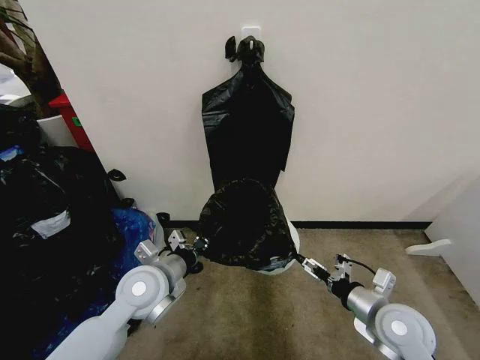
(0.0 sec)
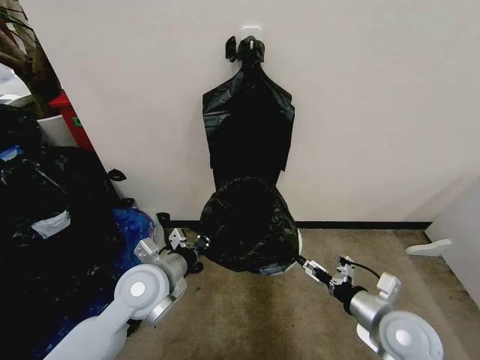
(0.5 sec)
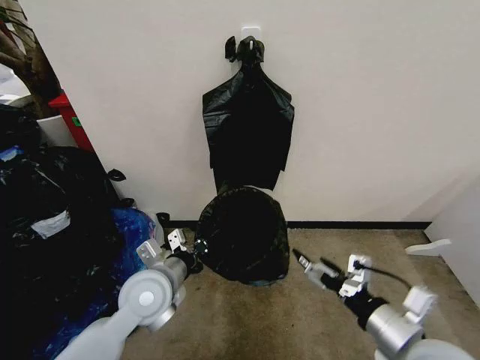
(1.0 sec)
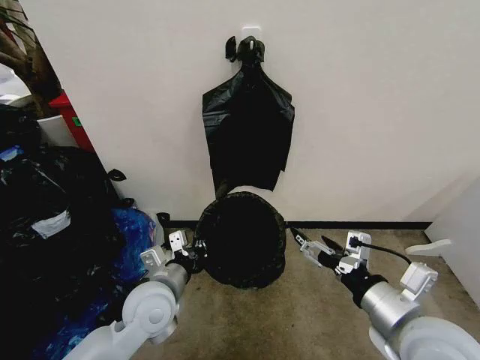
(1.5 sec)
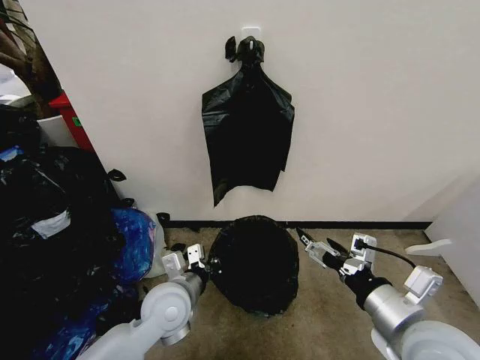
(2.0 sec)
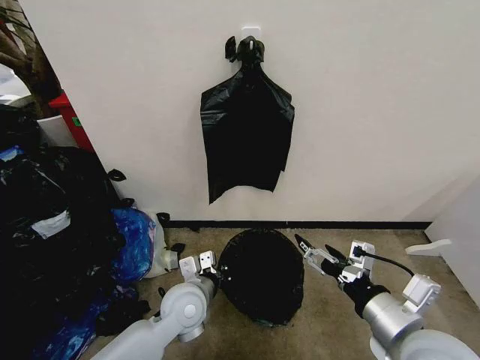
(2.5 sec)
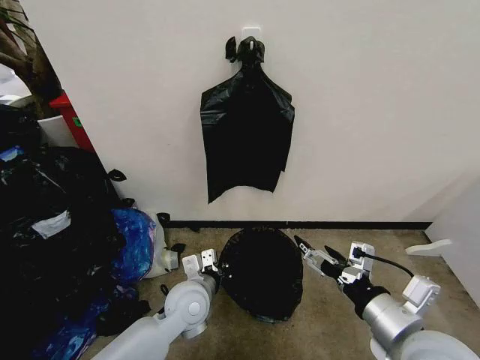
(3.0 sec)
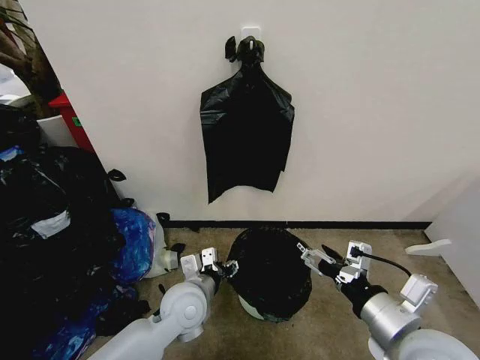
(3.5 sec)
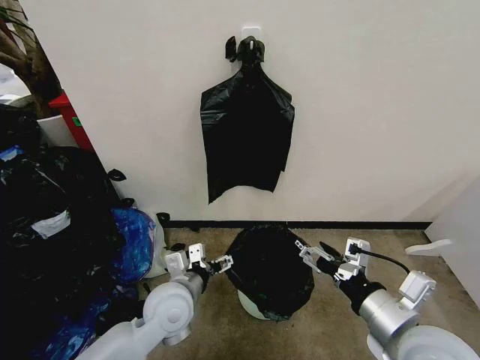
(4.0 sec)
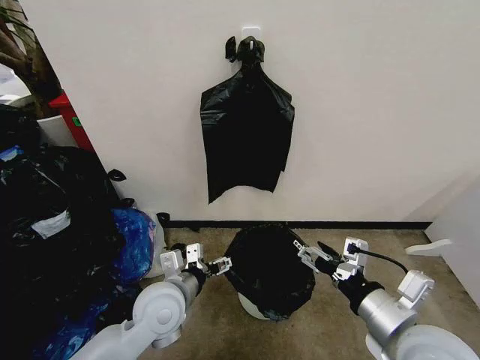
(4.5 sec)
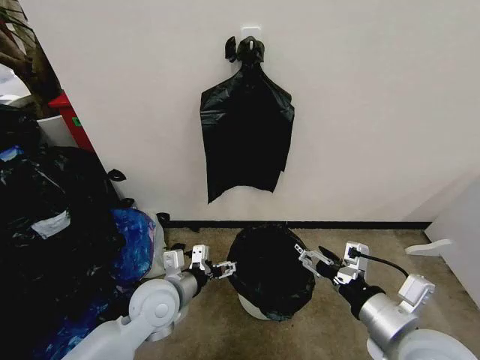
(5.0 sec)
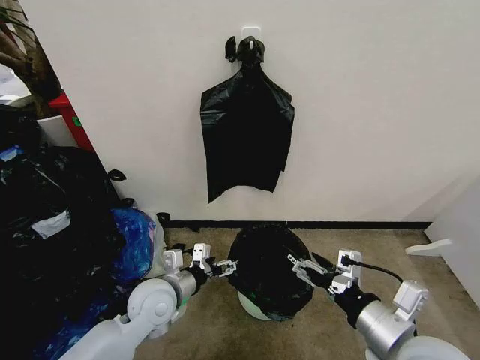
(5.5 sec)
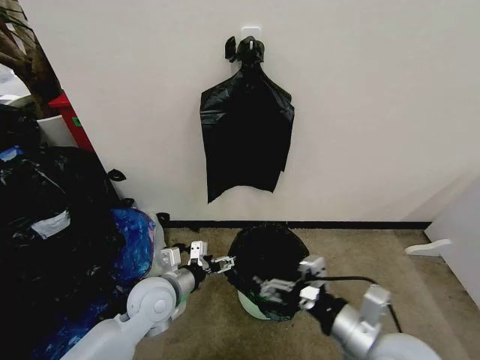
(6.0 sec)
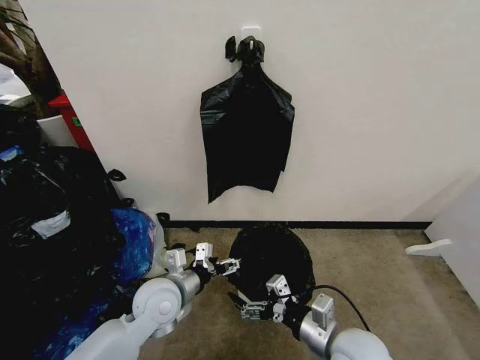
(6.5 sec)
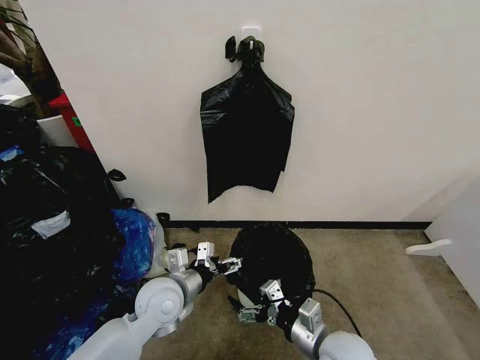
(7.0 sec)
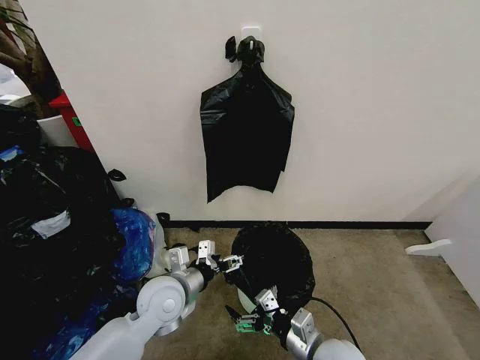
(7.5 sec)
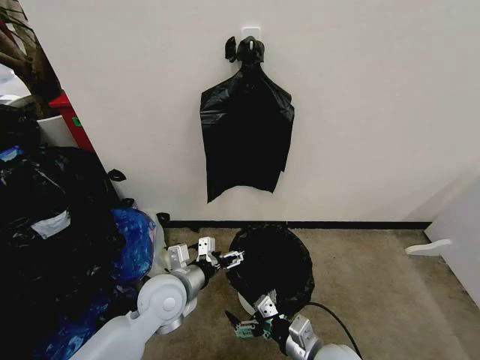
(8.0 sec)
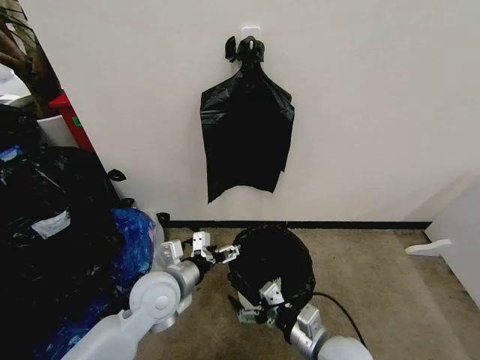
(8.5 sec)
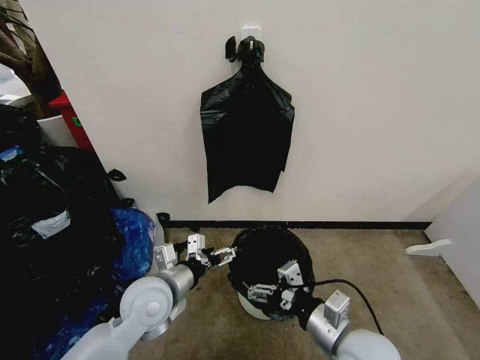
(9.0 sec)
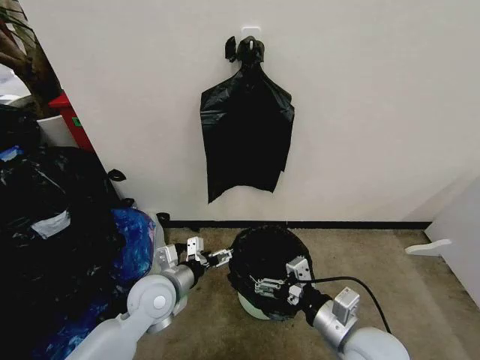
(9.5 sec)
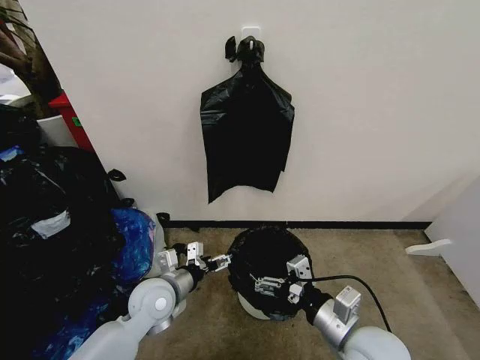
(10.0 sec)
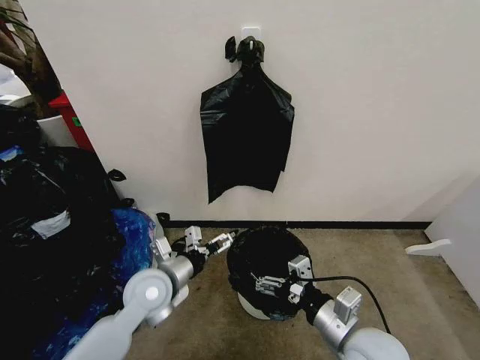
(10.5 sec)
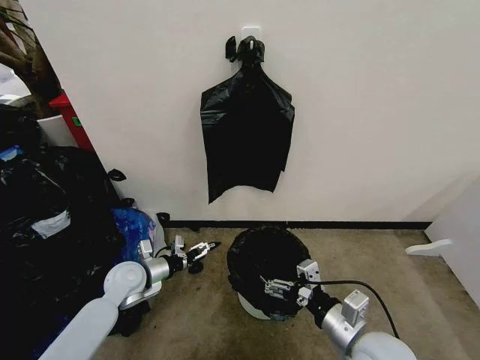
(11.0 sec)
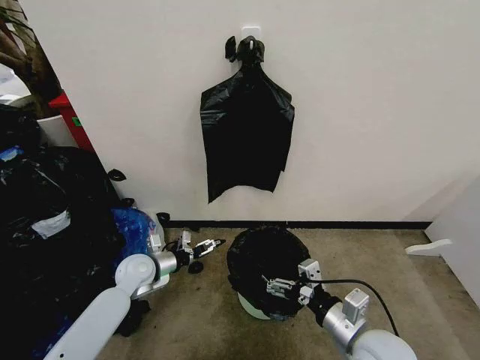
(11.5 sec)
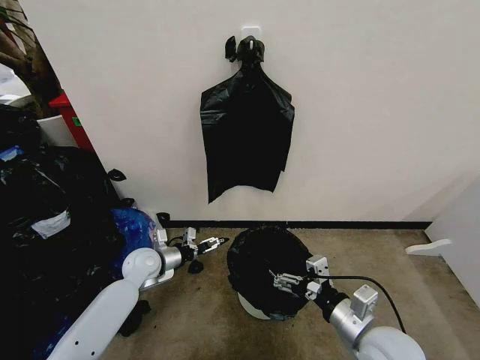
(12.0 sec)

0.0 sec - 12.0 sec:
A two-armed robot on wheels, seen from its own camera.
Task of the whole recording: Place the garbage bag over the trash bin.
0.0 sec - 2.0 sec: The left gripper shifts by about 5 cm. The right gripper is displaced upward and backward by approximately 15 cm.
2.0 sec - 4.0 sec: The left gripper opens its fingers.
6.0 sec - 8.0 sec: The right gripper moves downward, some 15 cm.
8.0 sec - 10.0 sec: The right gripper heads upward, covering roughly 10 cm.
10.0 sec - 12.0 sec: The left gripper travels forward, to the left and downward by about 15 cm.

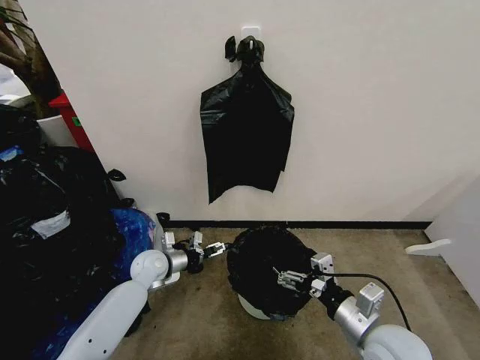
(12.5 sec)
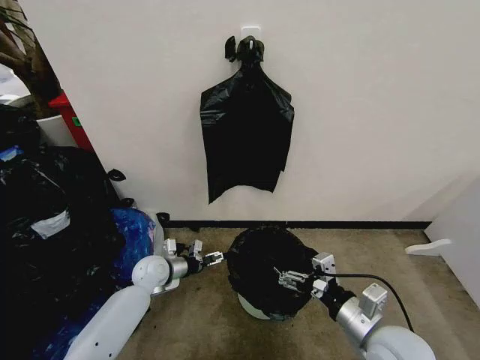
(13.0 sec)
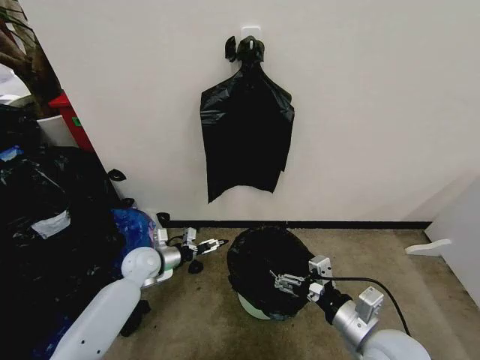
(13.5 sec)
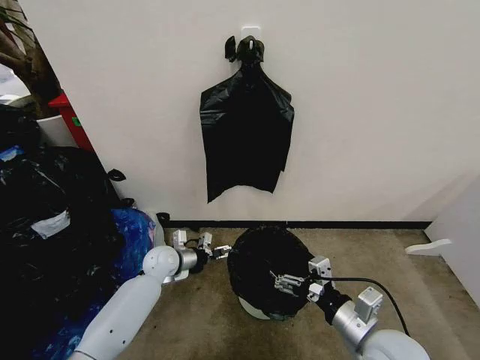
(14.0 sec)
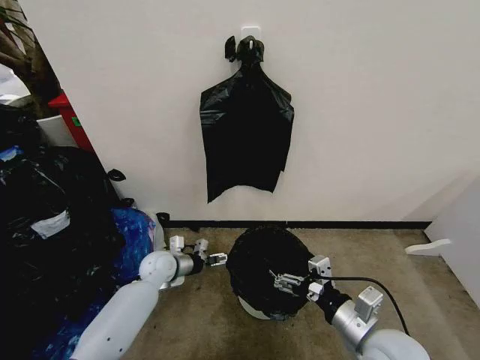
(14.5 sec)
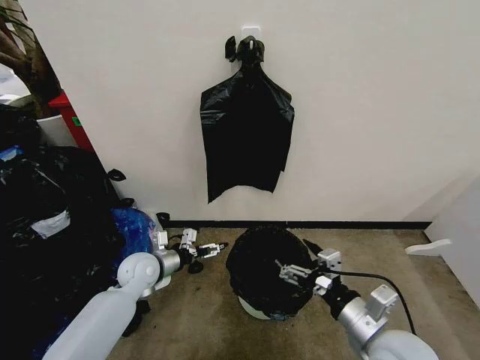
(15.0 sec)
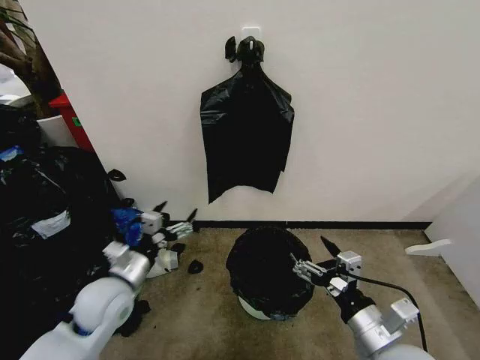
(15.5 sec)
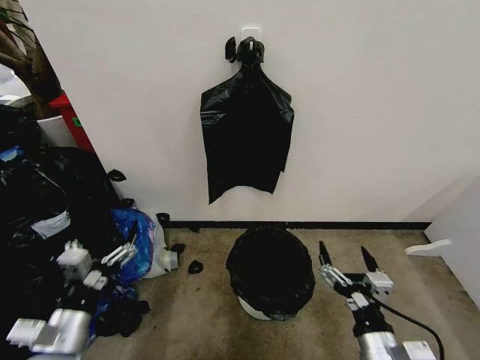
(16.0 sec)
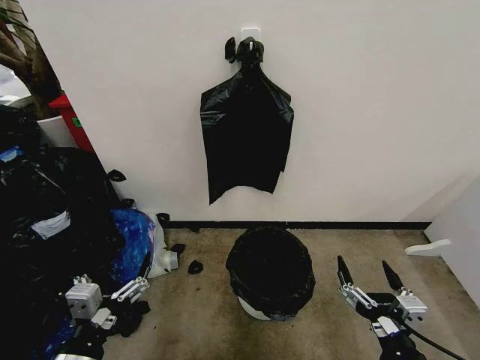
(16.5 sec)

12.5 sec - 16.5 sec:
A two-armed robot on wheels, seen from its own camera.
Task of the whole recording: Place the garbage bag over the trash bin.
12.5 sec - 14.5 sec: The grippers make only small movements.
14.5 sec - 16.5 sec: The right gripper moves backward, roughly 10 cm. The left gripper is displaced backward and upward by approximately 35 cm.
